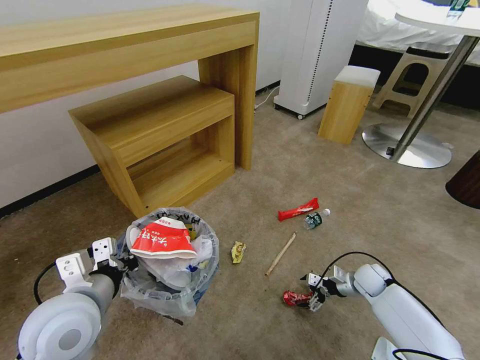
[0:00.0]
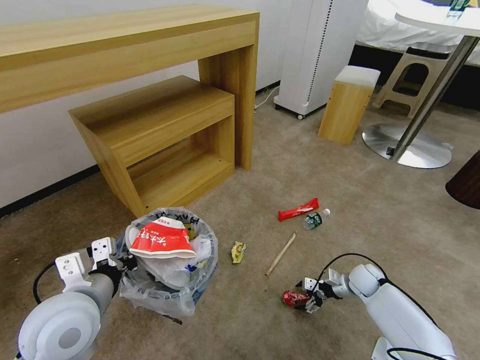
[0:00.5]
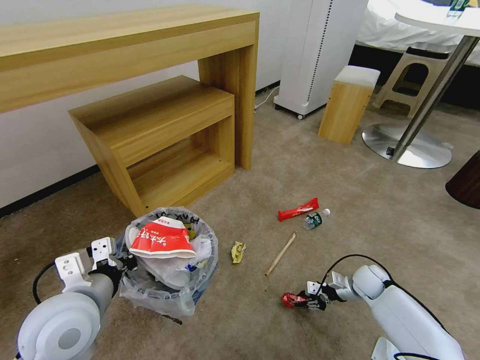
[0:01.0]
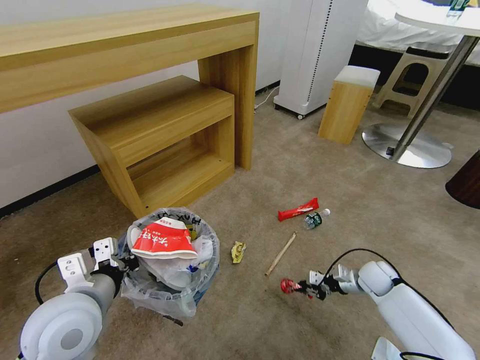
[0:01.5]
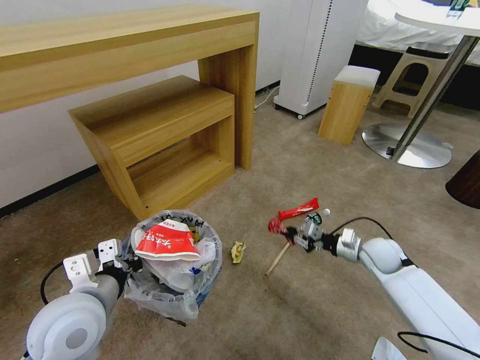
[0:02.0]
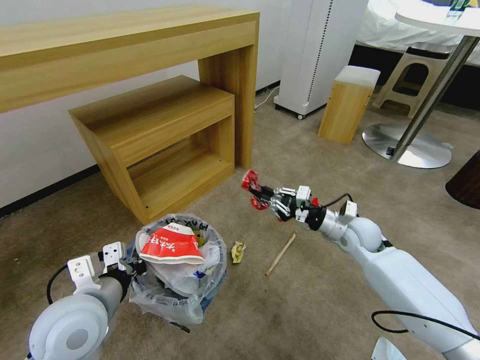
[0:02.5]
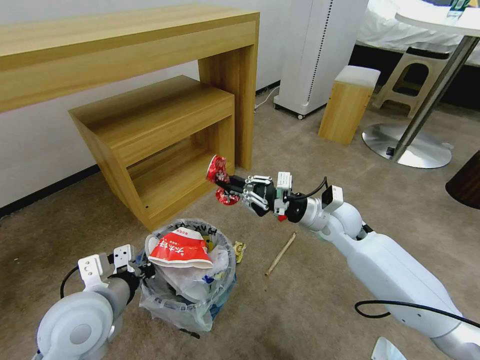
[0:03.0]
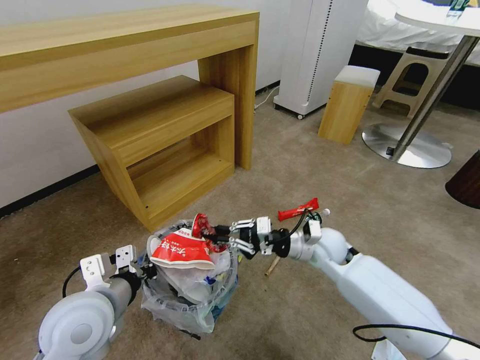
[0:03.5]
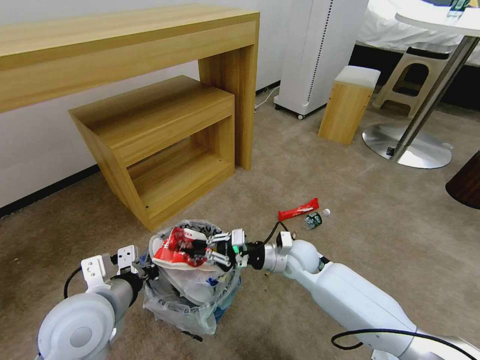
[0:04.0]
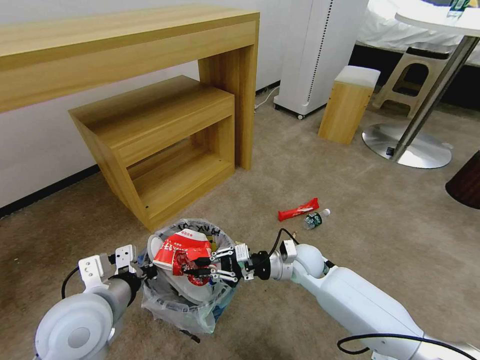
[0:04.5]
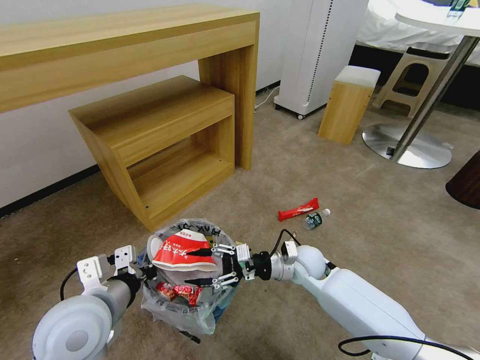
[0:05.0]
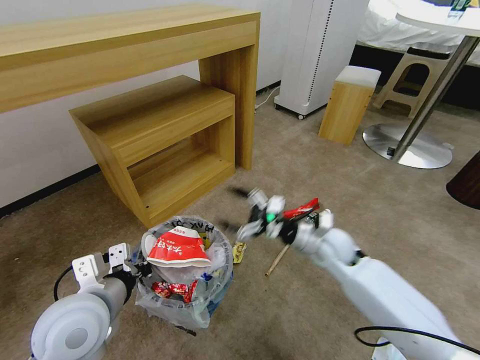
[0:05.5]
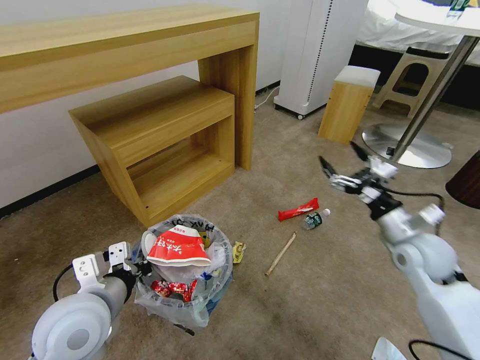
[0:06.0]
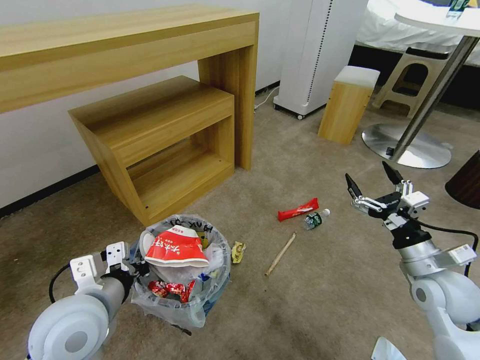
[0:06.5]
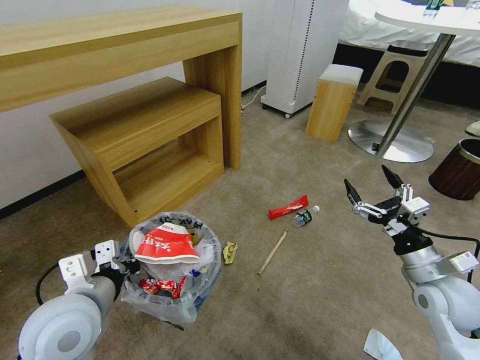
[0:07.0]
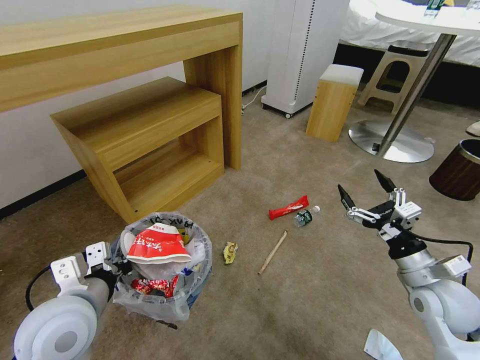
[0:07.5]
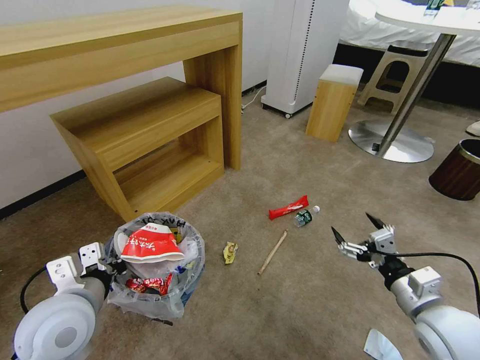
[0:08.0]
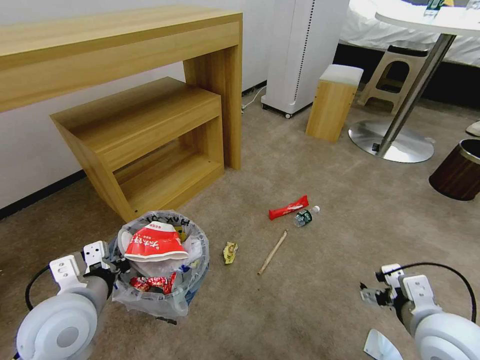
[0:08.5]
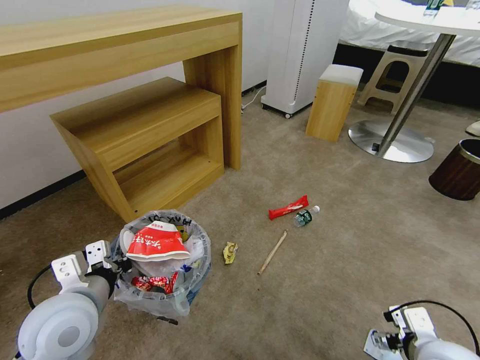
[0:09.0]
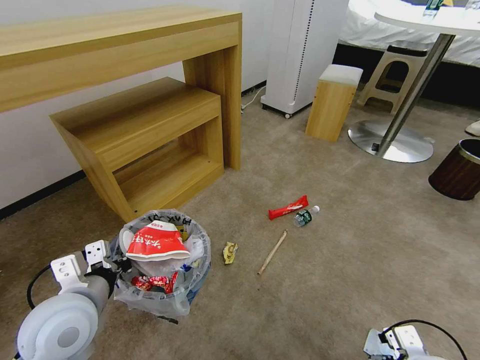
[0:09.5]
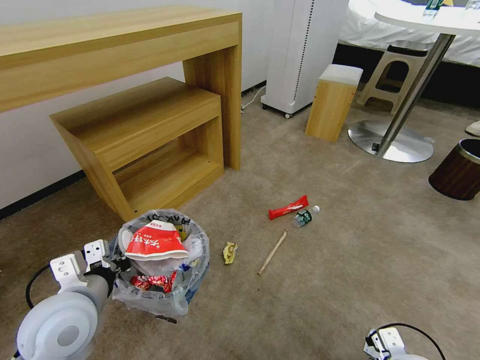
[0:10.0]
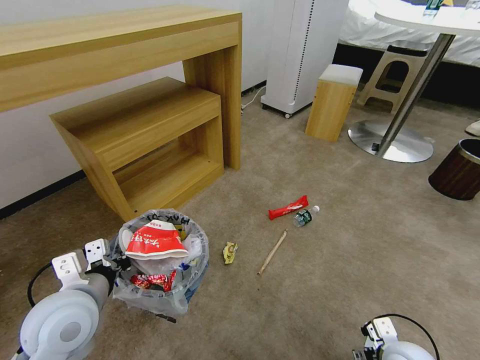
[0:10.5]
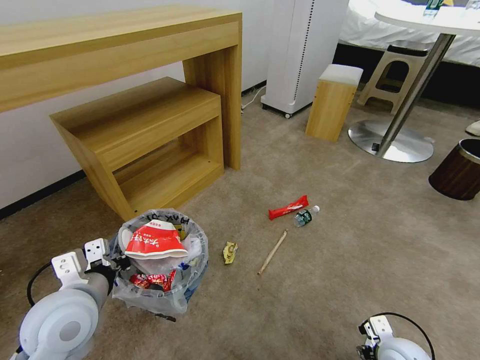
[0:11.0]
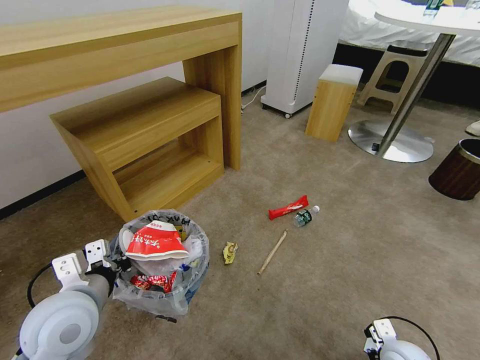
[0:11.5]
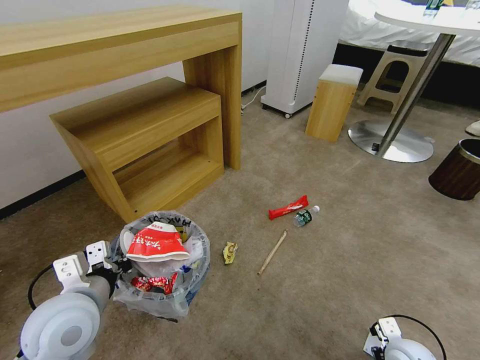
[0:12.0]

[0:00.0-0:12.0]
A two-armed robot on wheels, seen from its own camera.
Task of the whole recording: Pick up the trash bin and place the garbage on the floor into it.
0:00.0 to 0:02.0: The right gripper moves upward, some 10 cm, and closes its fingers.
0:02.0 to 0:04.0: The right gripper travels to the left by roughly 20 cm.
0:04.0 to 0:06.0: The right gripper shifts about 25 cm to the right and upward, and opens its fingers.
0:06.0 to 0:08.0: The right gripper travels backward by approximately 15 cm.
0:08.0 to 0:10.0: The right gripper travels downward and backward by about 15 cm.
0:10.0 to 0:12.0: The right gripper moves downward, about 5 cm, and closes its fingers.

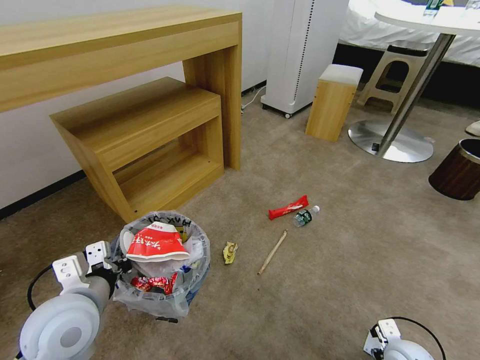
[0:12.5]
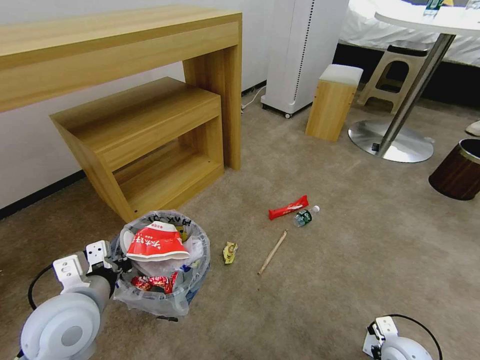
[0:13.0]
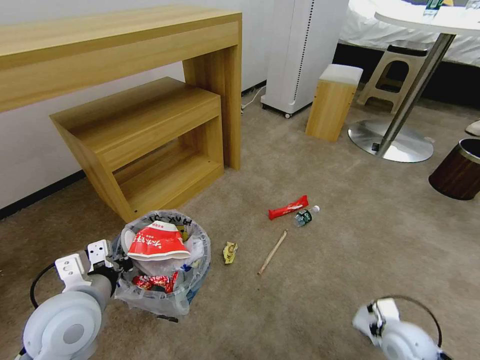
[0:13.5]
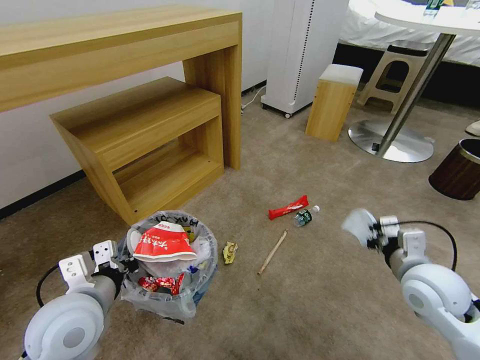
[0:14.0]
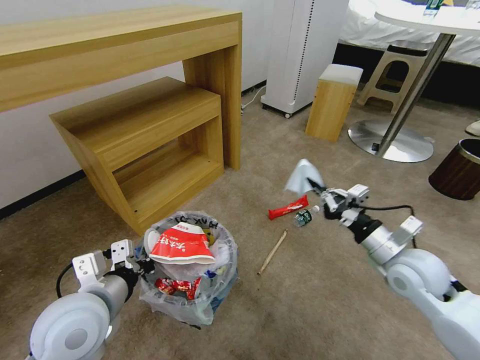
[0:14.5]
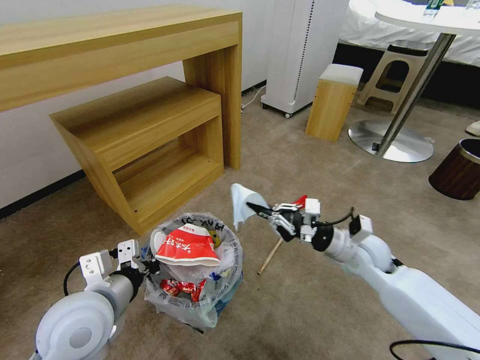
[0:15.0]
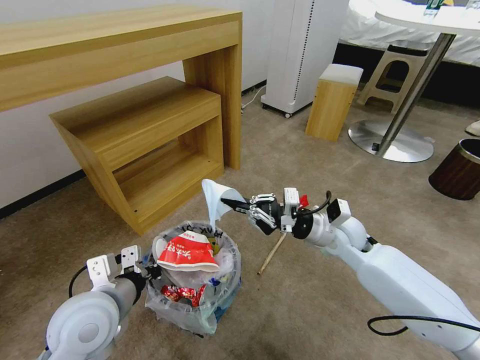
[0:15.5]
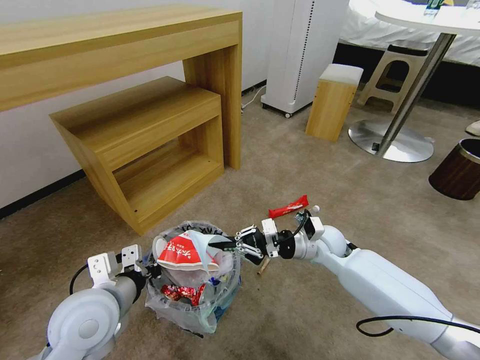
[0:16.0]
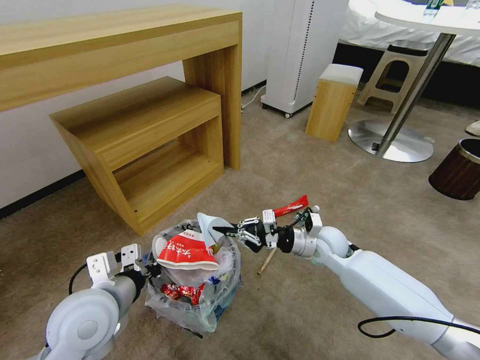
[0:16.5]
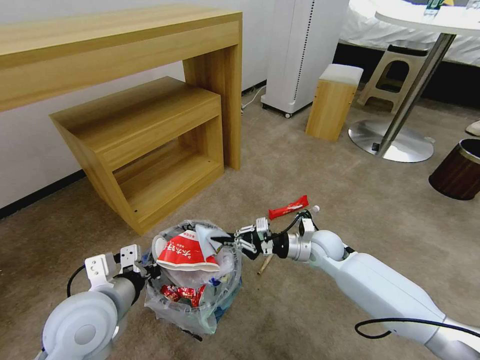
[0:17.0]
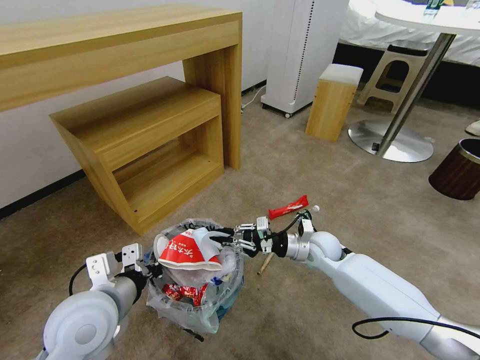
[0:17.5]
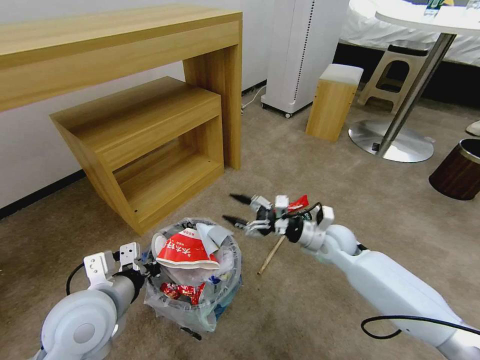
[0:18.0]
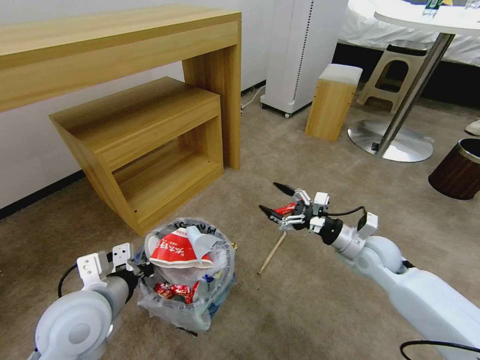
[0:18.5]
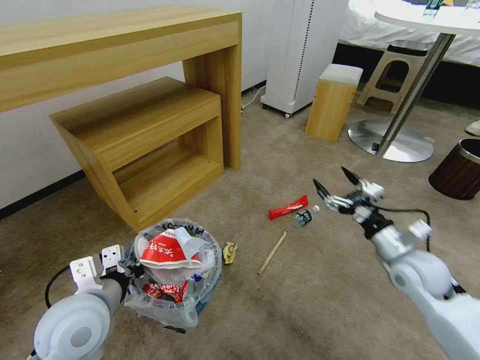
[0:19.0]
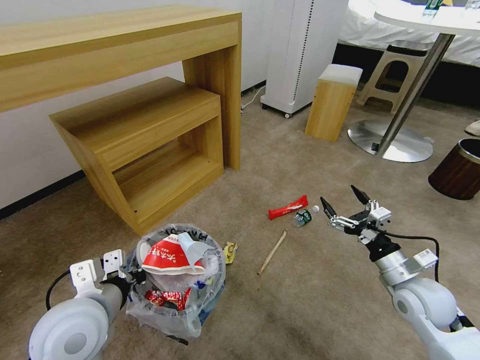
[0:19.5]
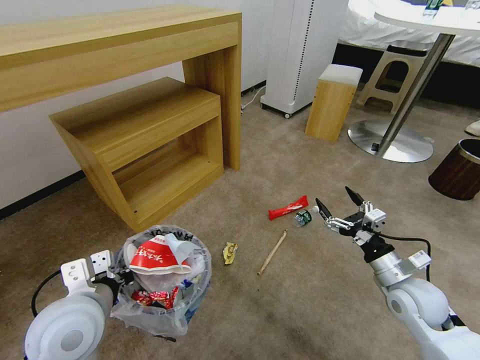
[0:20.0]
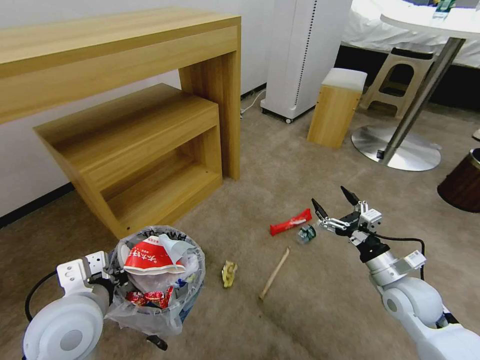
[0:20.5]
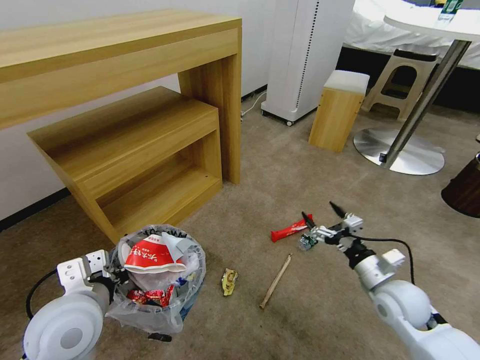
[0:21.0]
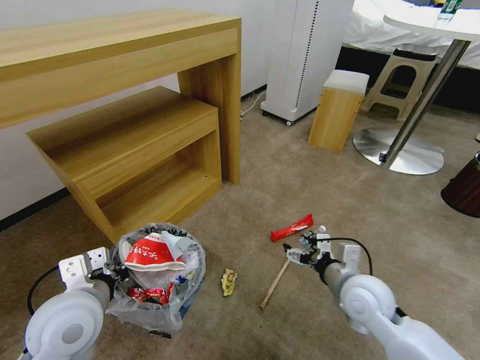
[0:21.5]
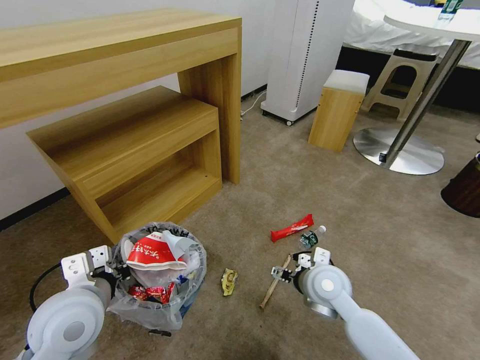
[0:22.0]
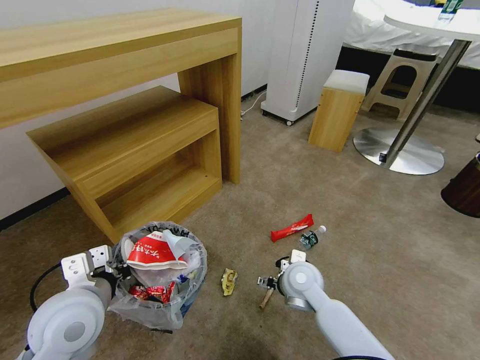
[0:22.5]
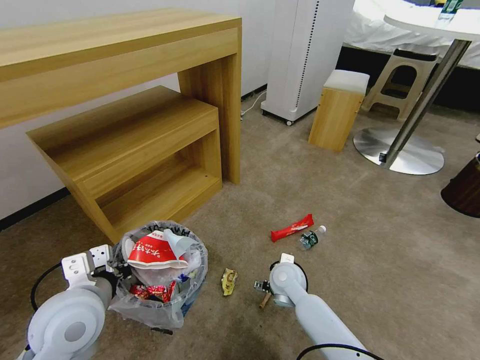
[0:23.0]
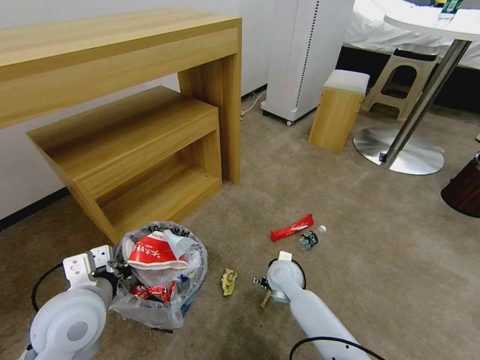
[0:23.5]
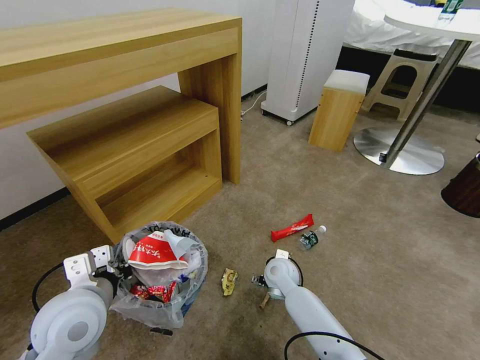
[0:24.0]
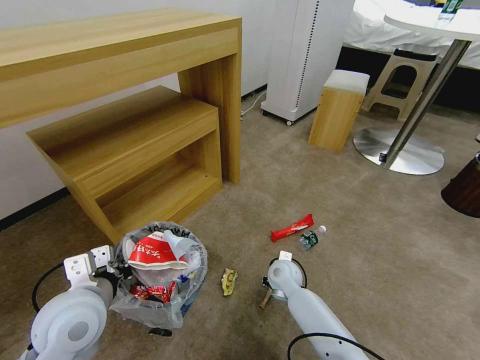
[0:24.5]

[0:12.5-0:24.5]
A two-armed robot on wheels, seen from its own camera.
Task of the whole recording: Pick up the trash bin and place the garbage on the floor into it.
0:12.5 to 0:14.5: The right gripper shifts some 25 cm upward and forward, and closes its fingers.
0:14.5 to 0:16.5: The right gripper moves to the left, forward and downward, approximately 20 cm.
0:16.5 to 0:18.5: The right gripper goes roughly 10 cm to the right, and opens its fingers.
0:18.5 to 0:20.5: The right gripper heads backward, covering some 10 cm.
0:20.5 to 0:22.5: The right gripper heads to the left, covering approximately 20 cm.
0:22.5 to 0:24.5: The right gripper moves downward, about 10 cm, and closes.

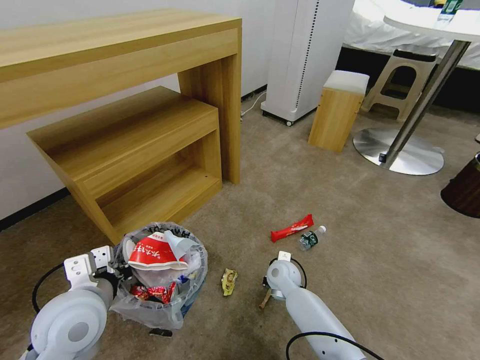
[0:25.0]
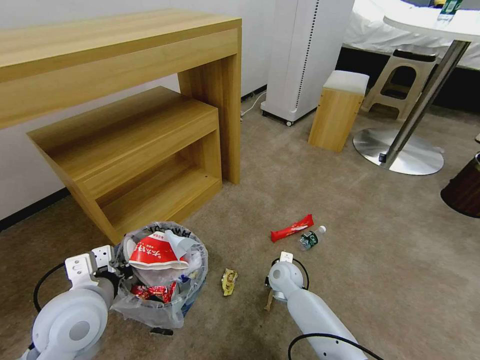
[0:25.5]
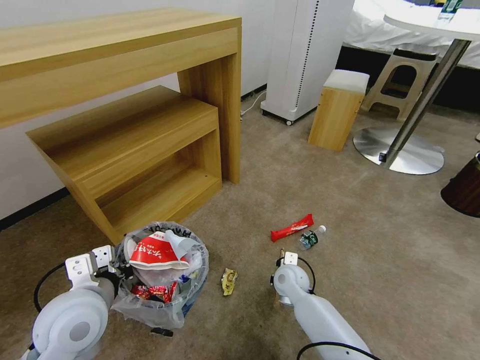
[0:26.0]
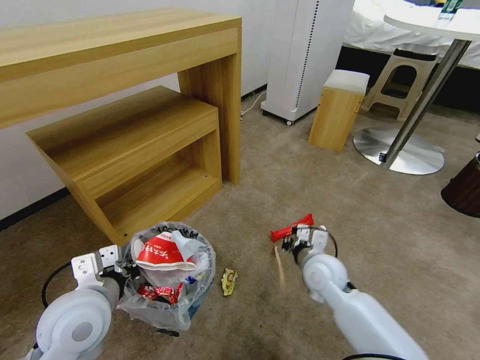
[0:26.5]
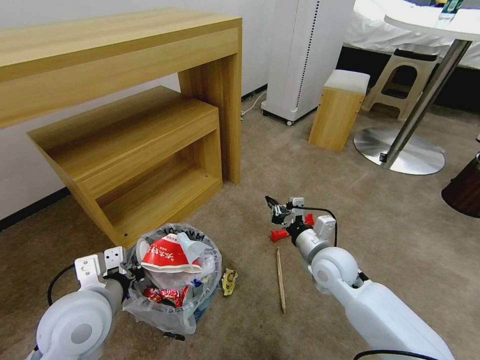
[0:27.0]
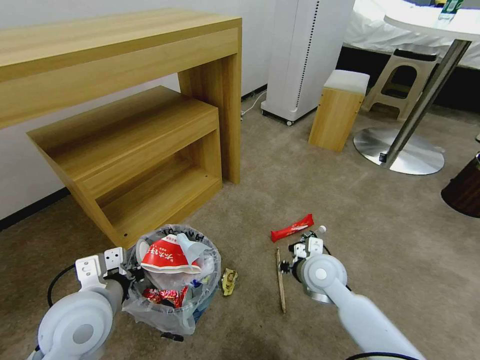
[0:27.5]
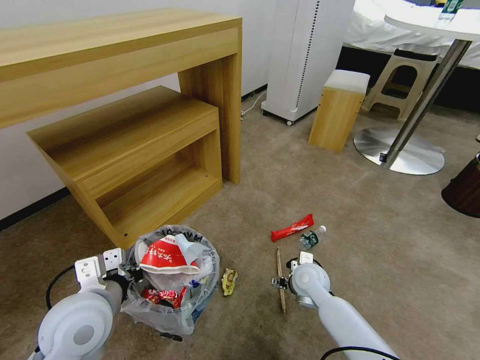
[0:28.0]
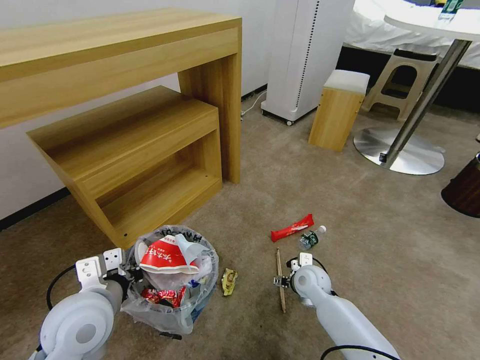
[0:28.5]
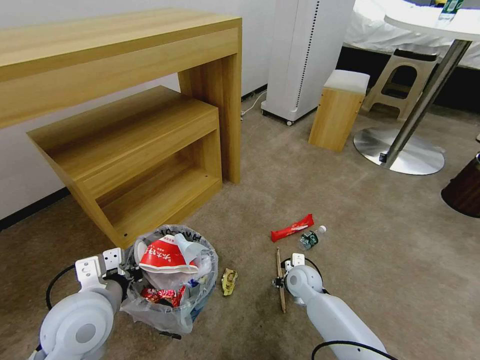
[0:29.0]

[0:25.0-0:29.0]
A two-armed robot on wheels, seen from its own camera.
Task of the whole recording: Pick up the trash bin and place the garbage on the floor into it.
0:25.0 to 0:27.0: The right gripper travels upward and to the right by roughly 15 cm, and closes its fingers.
0:27.0 to 0:29.0: The right gripper moves downward, some 15 cm, and opens its fingers.
